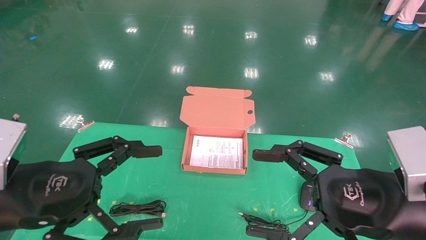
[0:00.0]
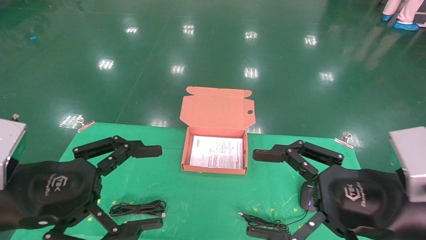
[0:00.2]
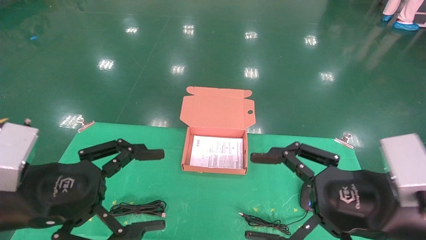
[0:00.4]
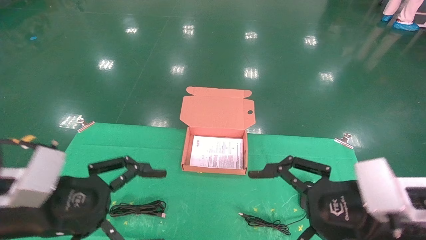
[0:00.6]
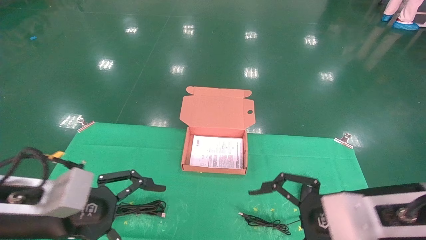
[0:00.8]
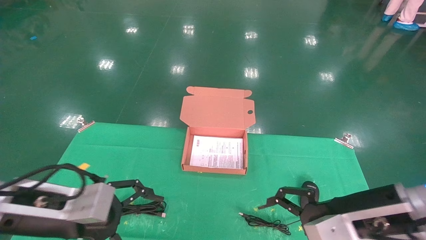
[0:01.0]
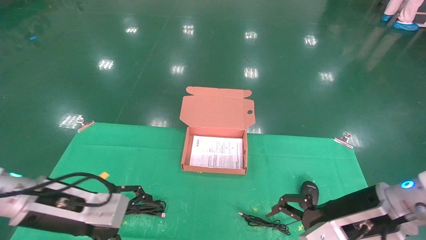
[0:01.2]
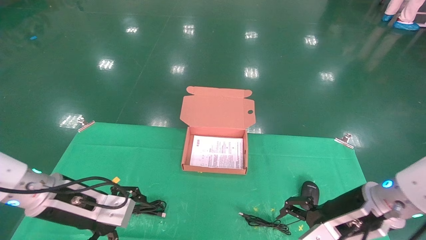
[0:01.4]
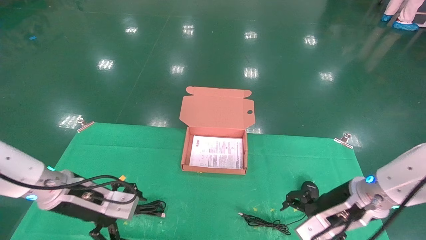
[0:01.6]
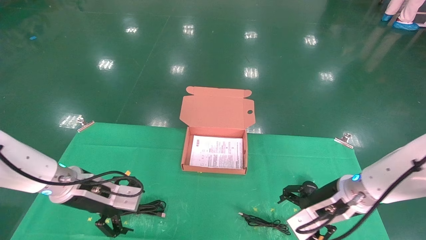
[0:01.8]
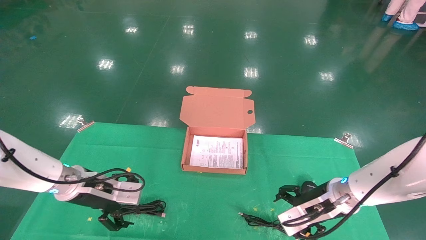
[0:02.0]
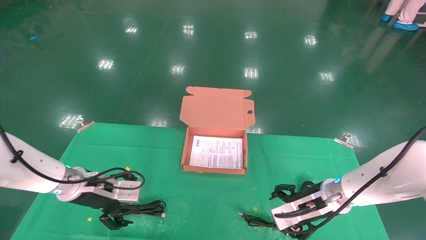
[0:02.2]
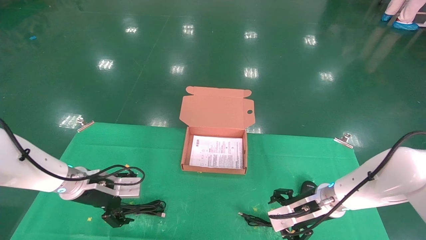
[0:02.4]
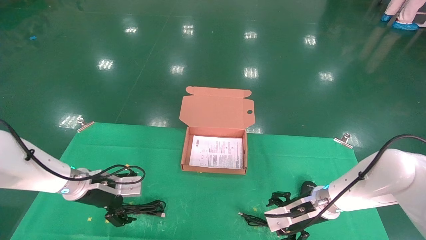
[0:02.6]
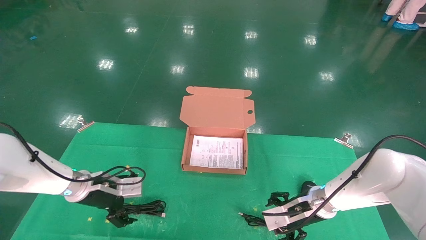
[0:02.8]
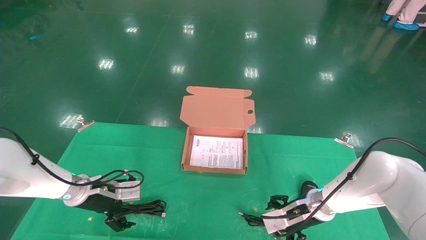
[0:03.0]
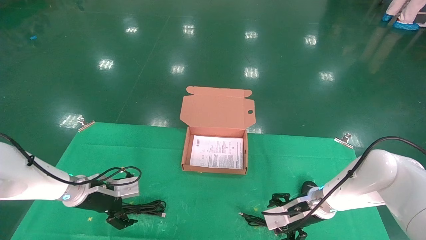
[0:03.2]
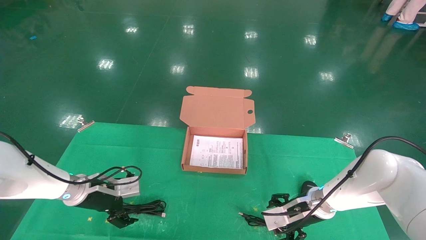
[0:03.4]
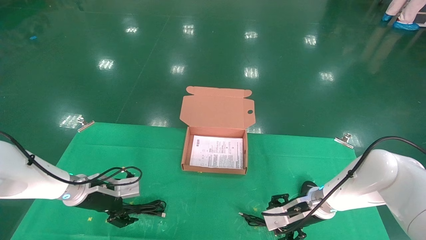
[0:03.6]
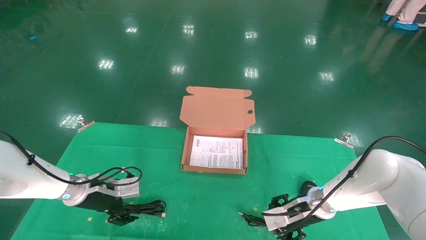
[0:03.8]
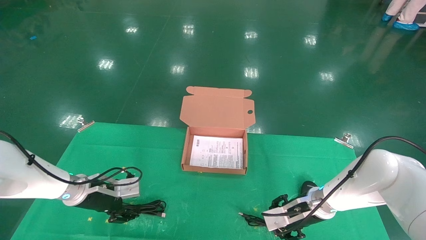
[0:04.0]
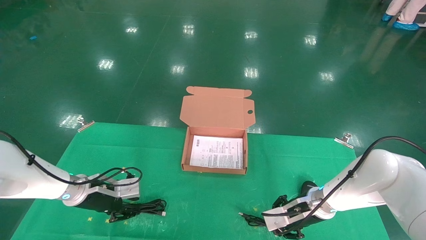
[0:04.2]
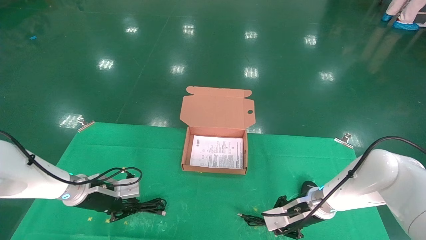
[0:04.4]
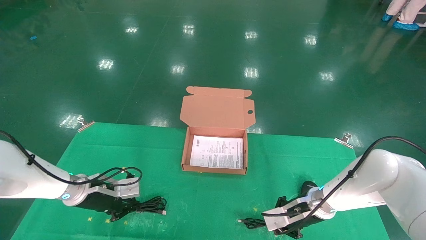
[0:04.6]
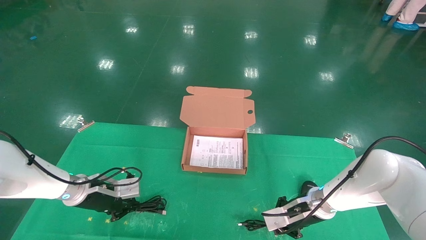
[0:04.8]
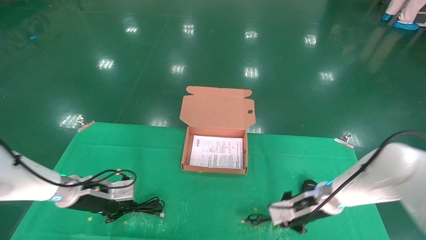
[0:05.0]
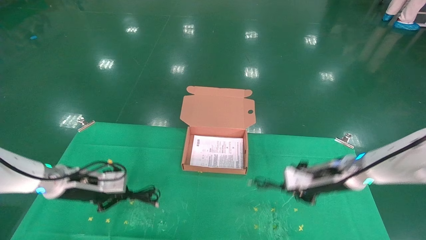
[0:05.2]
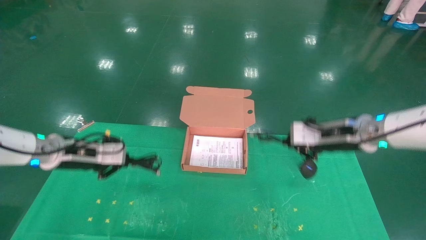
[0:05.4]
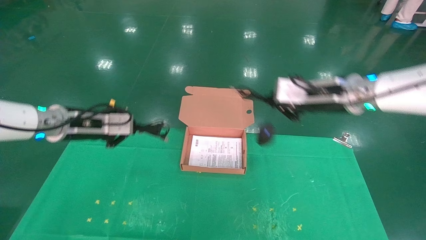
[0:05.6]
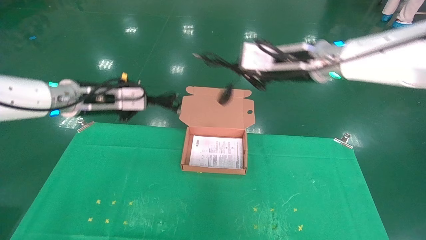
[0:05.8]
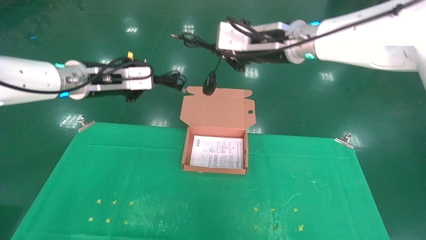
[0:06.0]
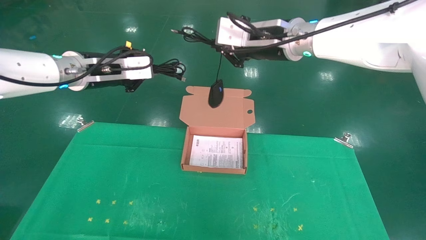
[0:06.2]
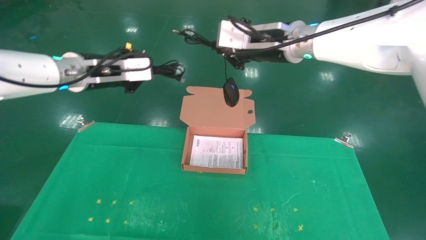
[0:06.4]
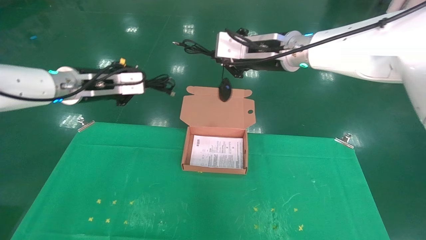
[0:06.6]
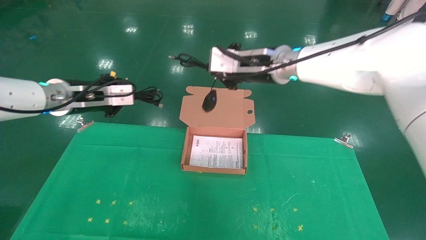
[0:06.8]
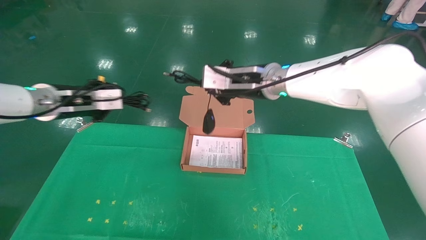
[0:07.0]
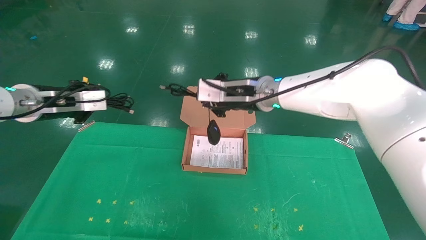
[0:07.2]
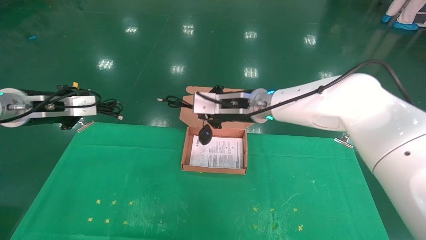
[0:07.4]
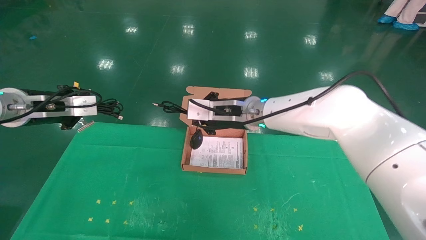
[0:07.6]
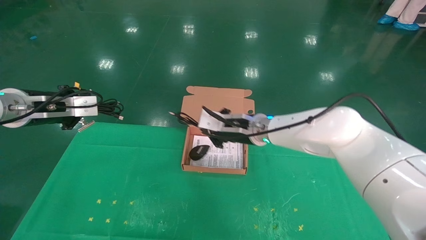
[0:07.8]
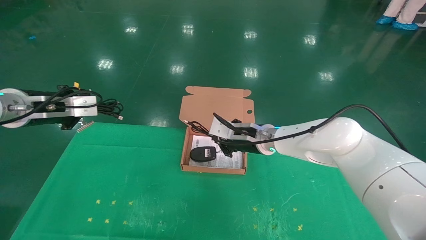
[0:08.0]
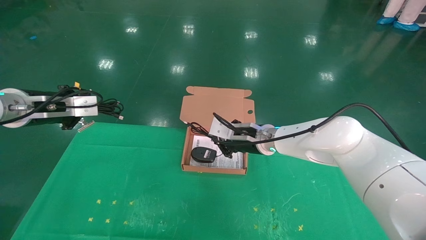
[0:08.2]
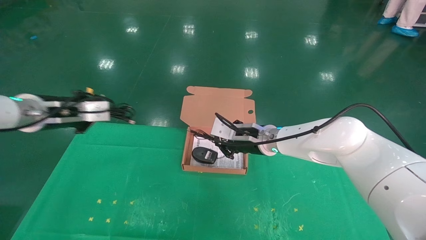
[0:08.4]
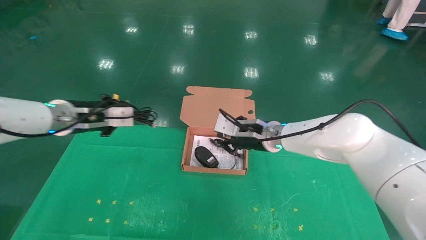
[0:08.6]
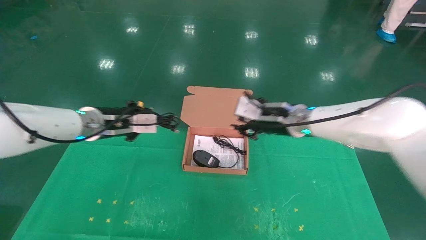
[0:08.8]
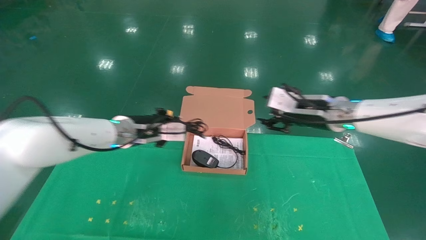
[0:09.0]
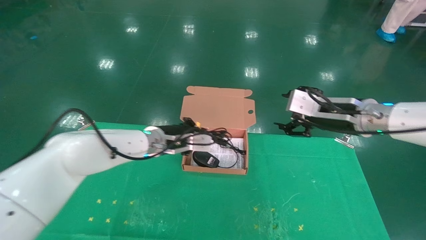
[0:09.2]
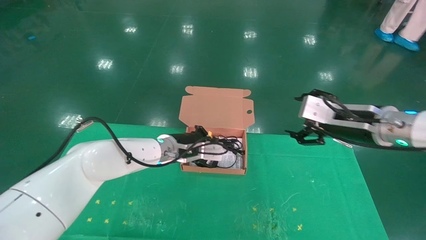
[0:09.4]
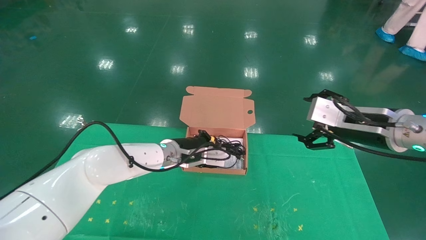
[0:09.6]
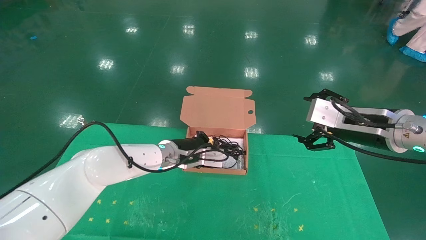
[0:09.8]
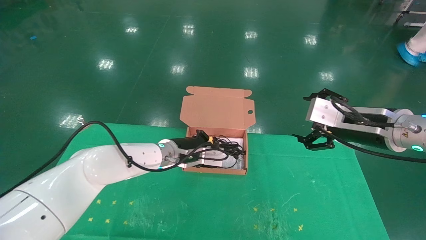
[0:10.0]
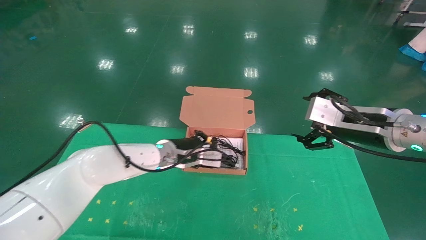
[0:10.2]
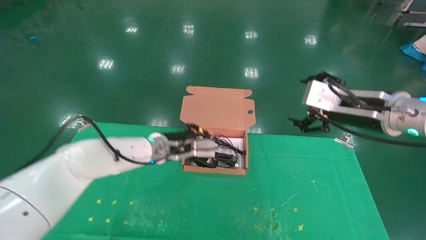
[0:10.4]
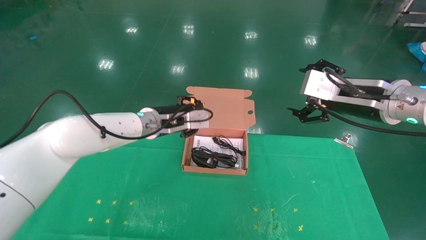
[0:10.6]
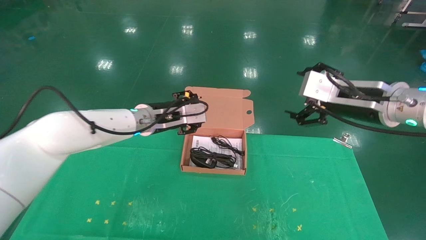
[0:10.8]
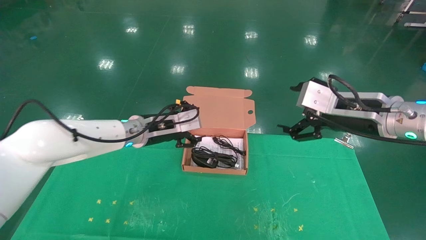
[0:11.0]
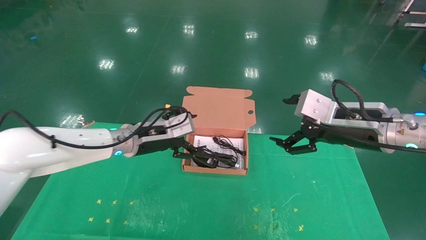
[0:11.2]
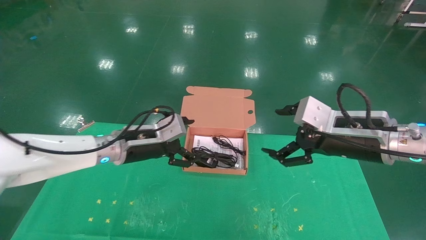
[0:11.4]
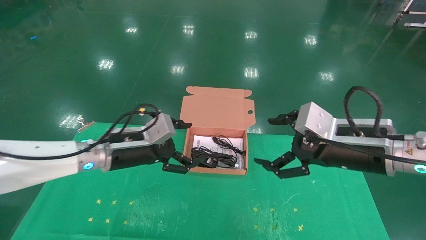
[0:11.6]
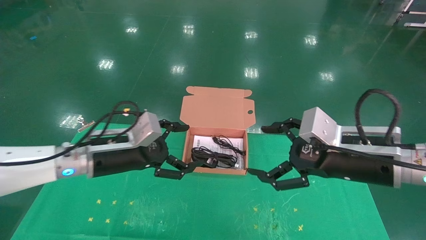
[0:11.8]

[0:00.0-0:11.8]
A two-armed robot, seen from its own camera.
Task of the whole recording: grasp data cable left put into box grasp mouse right put into box.
Step, 0:01.0 to 0:05.0: Grab and pick up both the mouse and power cord from the accessory packaging area at the same time.
Step, 0:05.2 to 0:09.8: Place the mouse and power cord into the box.
0:00.0 to 0:01.4: The grippers both shift forward and downward by roughly 10 cm.
0:01.4 to 0:03.0: The grippers both shift forward and downward by roughly 15 cm.
0:03.0 to 0:04.4: The left gripper closes up; the right gripper closes up.
0:04.4 to 0:06.0: The two grippers go about 30 cm upward.
0:06.0 to 0:07.4: The left gripper shifts roughly 10 cm to the left. The right gripper heads downward, covering roughly 10 cm.
0:07.4 to 0:08.8: The left gripper moves to the right, about 5 cm. The right gripper shifts roughly 10 cm downward.
0:08.8 to 0:10.4: The left gripper heads to the right and downward, covering about 20 cm, while the right gripper heads to the right, backward and upward, covering some 20 cm, and opens its fingers.
0:10.4 to 0:11.8: The right gripper heads downward, covering approximately 5 cm. The left gripper goes approximately 15 cm backward and to the left, and opens its fingers.

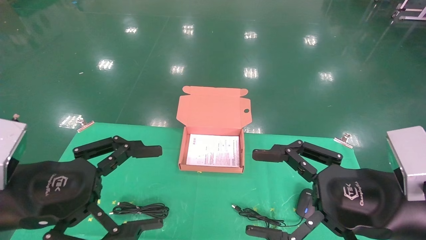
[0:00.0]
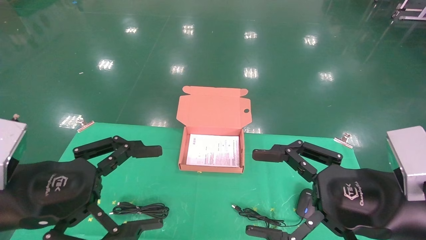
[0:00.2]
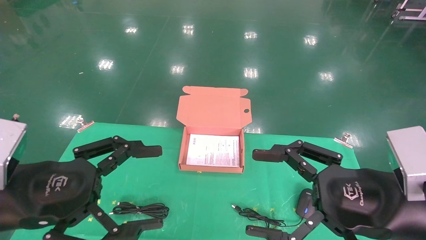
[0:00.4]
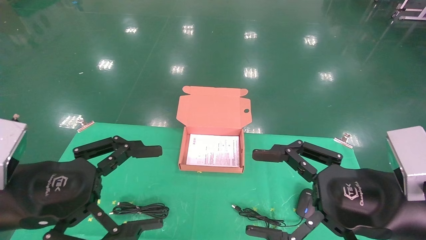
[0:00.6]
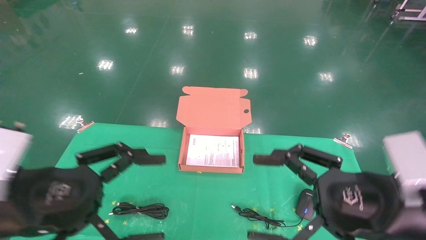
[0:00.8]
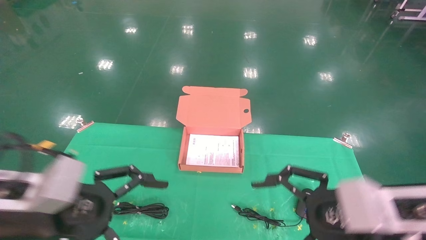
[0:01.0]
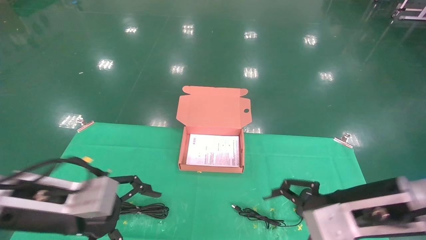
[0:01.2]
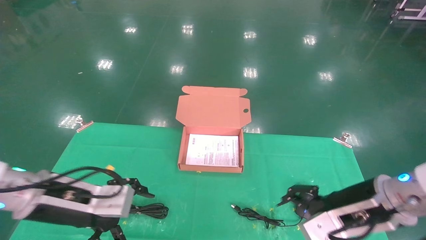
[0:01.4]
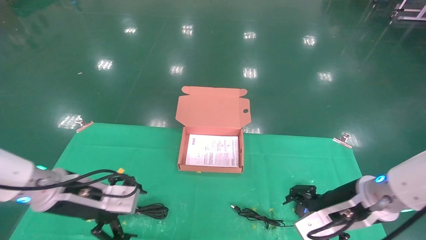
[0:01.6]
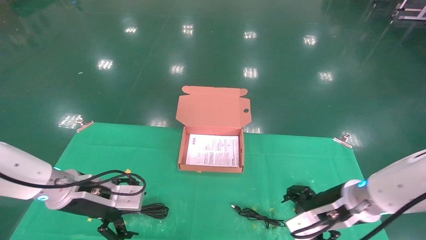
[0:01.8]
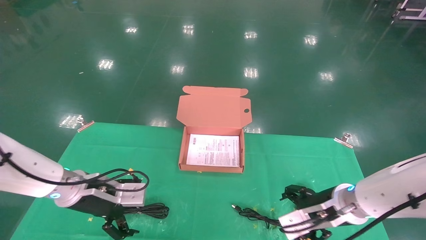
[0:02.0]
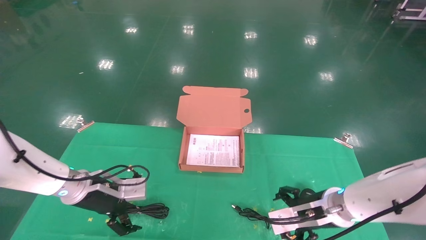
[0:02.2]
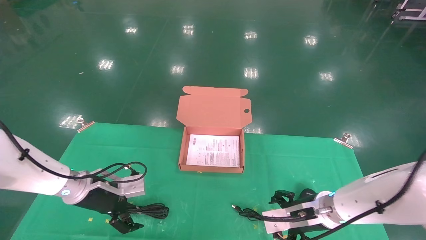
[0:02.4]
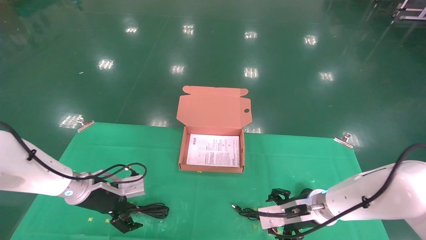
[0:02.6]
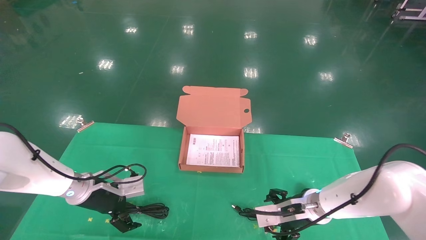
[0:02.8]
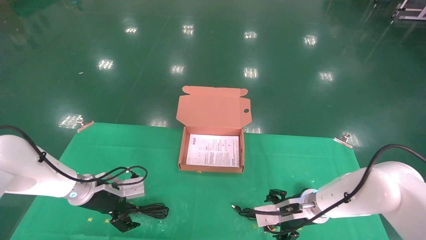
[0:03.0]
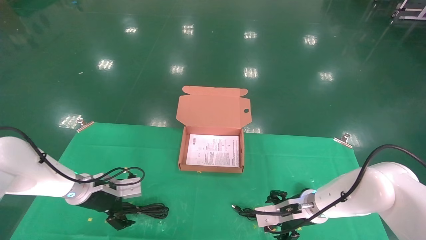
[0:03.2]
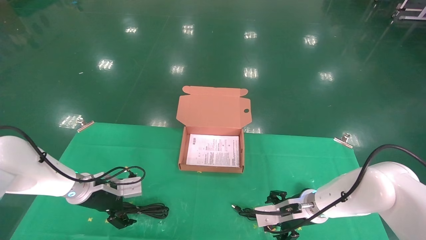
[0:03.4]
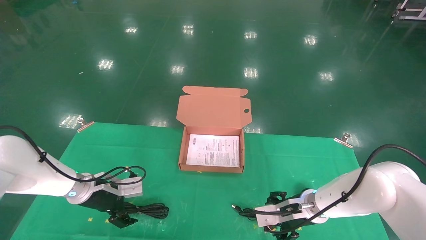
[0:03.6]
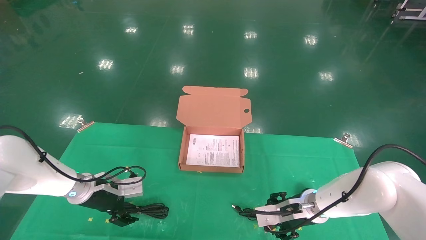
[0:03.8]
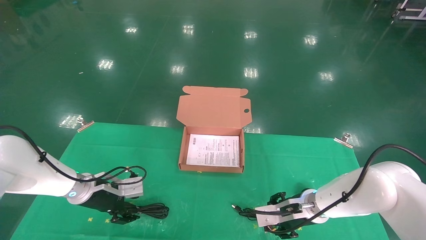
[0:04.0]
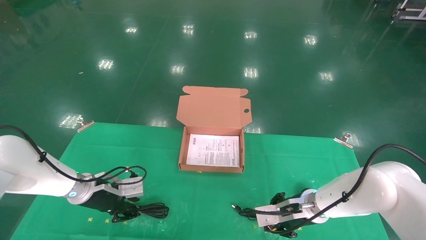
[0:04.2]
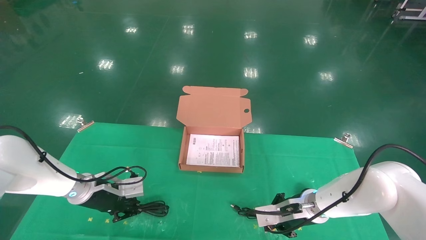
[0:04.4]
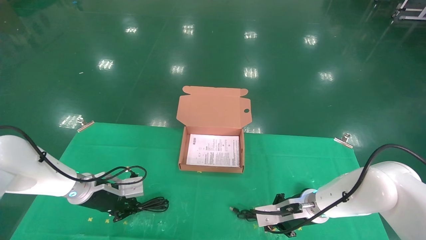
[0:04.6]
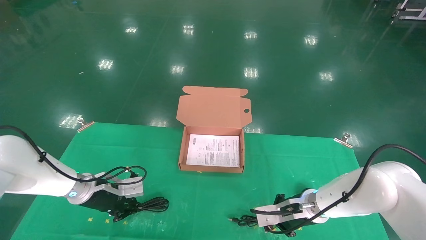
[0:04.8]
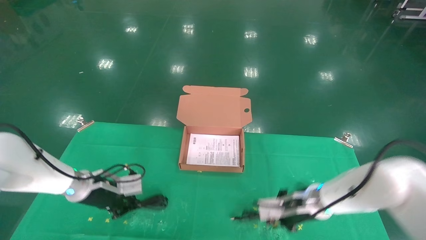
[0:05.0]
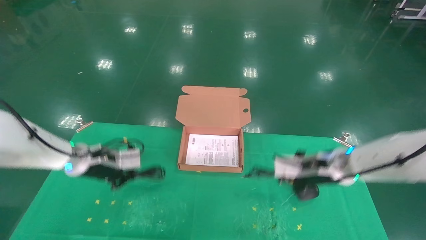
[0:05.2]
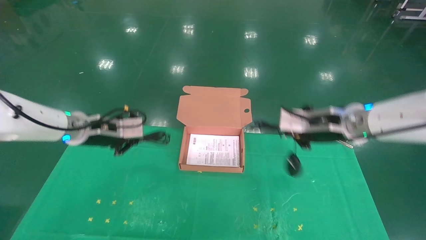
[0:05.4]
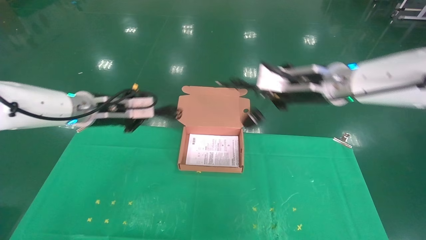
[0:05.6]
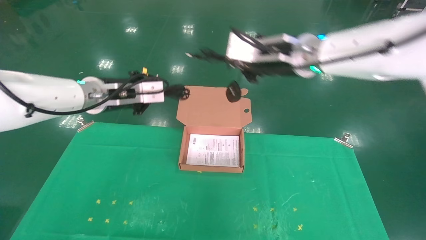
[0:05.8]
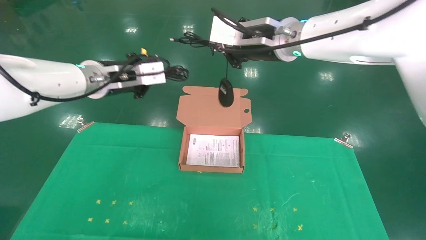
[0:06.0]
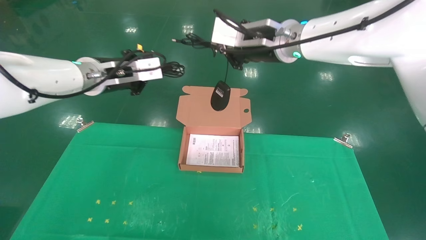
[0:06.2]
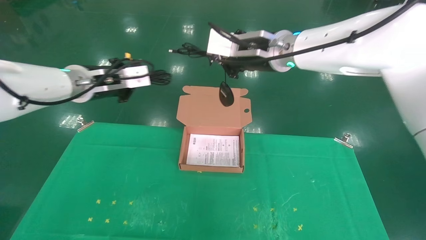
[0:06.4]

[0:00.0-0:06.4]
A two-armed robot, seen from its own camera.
Task of the whole recording: grasp data cable left put into box grasp mouse right put into box.
Step, 0:01.0 to 0:05.4: Grab and pick up both the mouse and power cord from the accessory packaging area at the same time.
0:00.0 to 0:01.6: The grippers both shift forward and downward by approximately 15 cm.
0:01.6 to 0:03.2: Both grippers travel together forward and downward, approximately 15 cm.
0:03.2 to 0:04.8: The right gripper closes its fingers. Meanwhile the left gripper closes up.
0:04.8 to 0:06.4: Both grippers move upward, roughly 30 cm.
